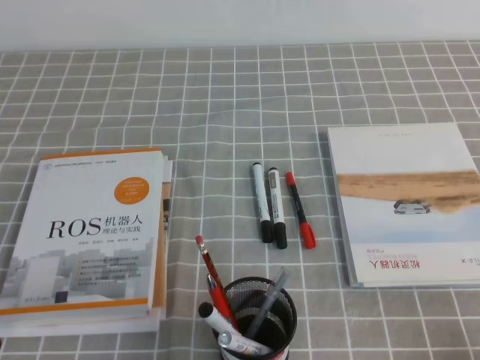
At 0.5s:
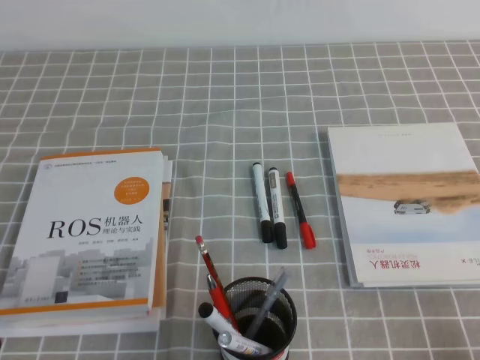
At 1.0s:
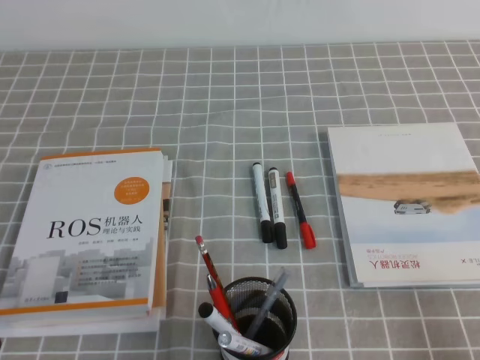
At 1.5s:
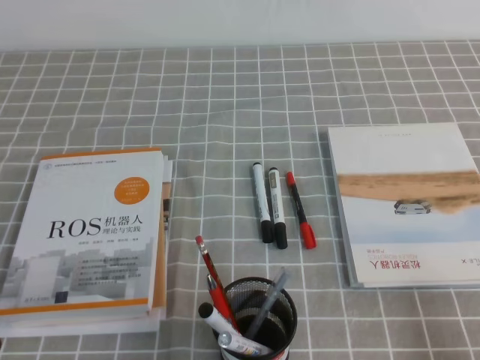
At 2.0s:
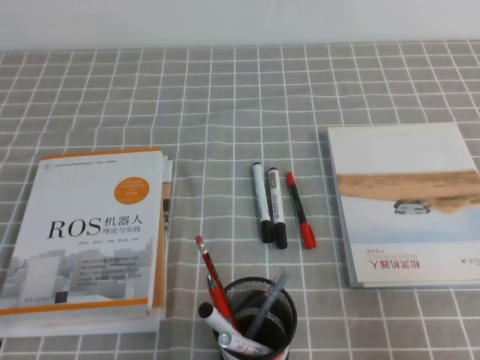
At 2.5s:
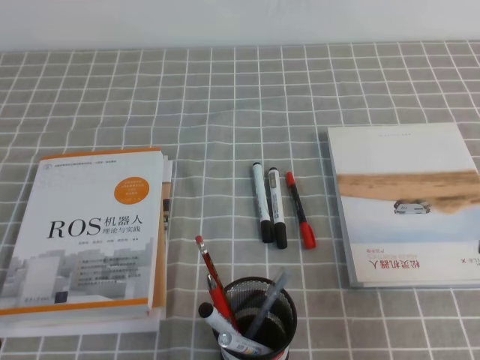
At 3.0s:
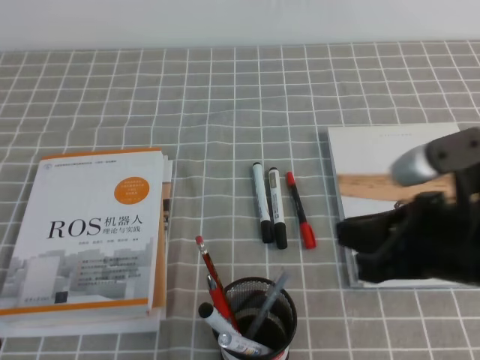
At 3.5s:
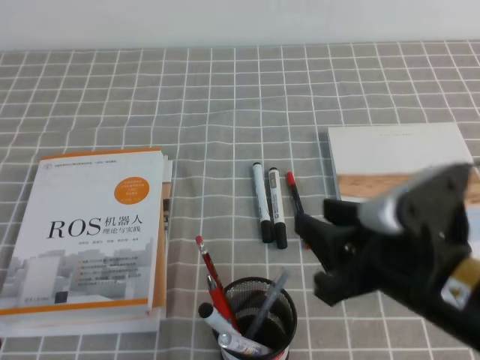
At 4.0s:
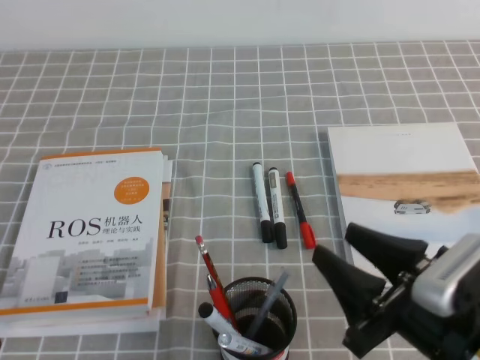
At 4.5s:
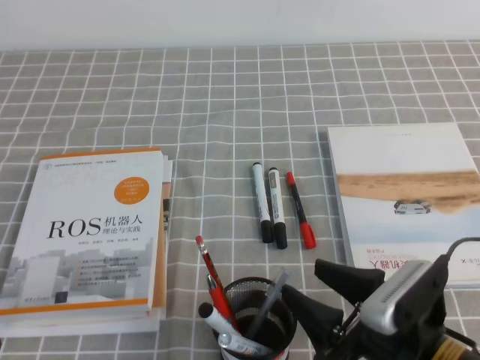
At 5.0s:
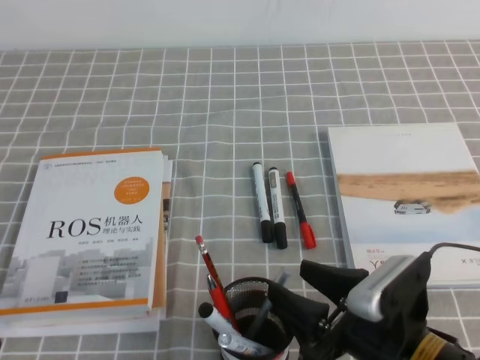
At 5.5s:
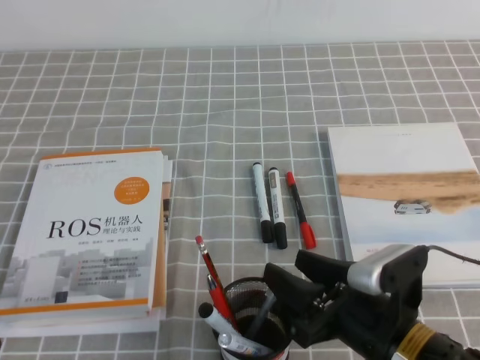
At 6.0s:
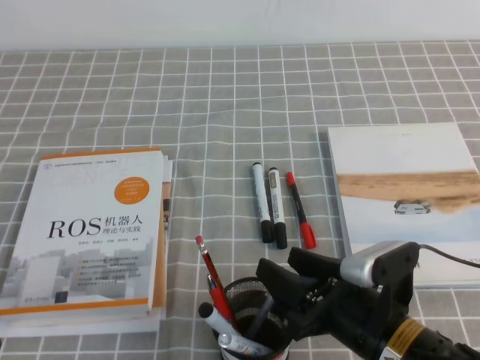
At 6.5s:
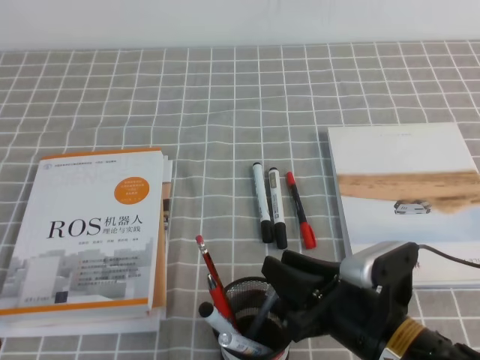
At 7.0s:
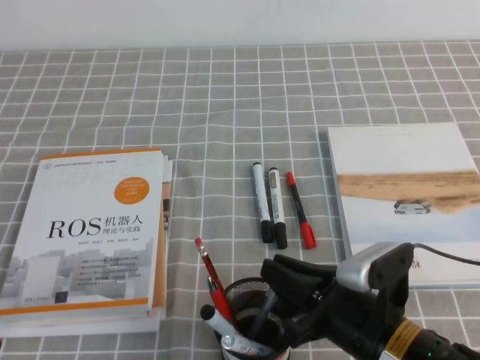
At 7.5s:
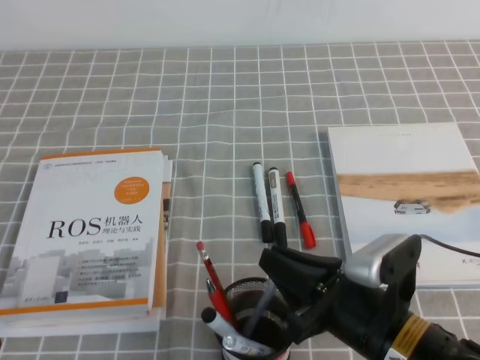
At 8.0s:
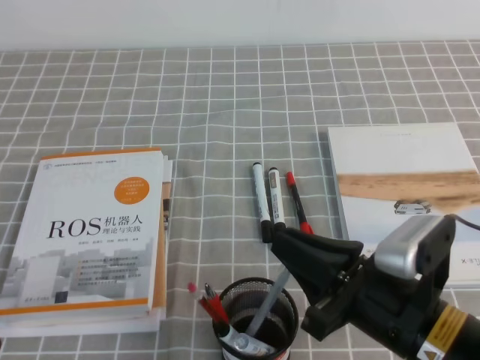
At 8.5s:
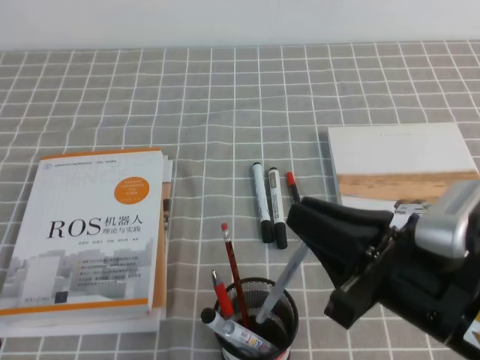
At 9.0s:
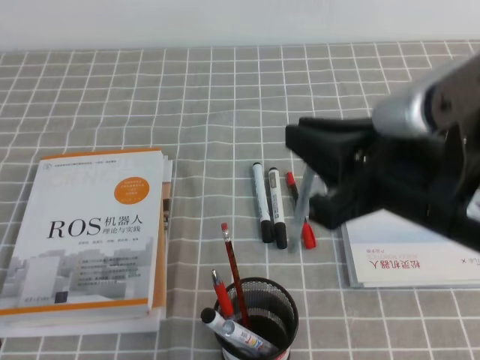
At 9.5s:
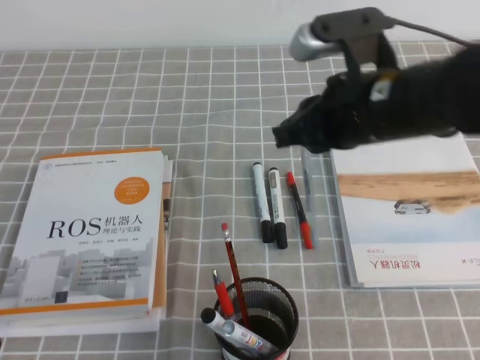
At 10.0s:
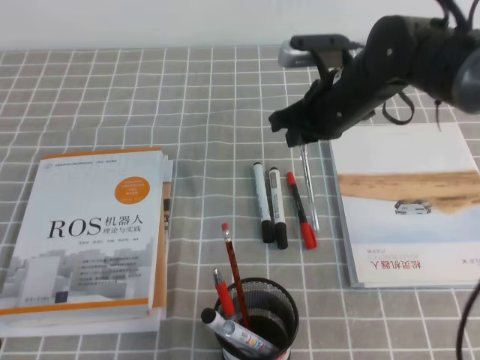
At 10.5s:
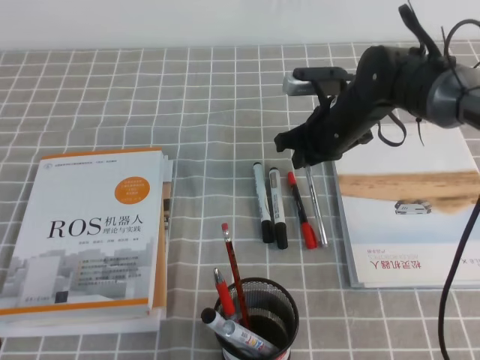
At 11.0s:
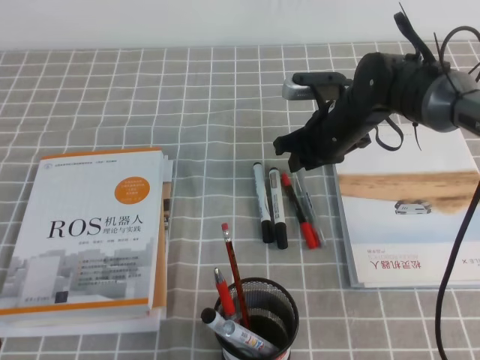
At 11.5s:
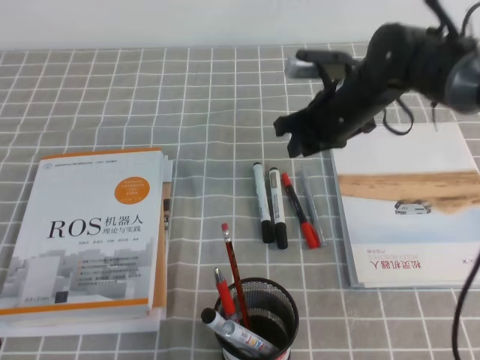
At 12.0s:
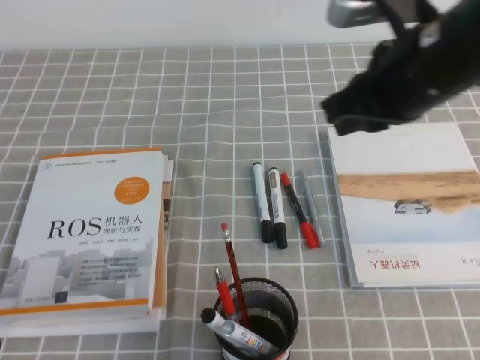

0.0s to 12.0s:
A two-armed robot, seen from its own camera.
0.0s to 2.0s: The right gripper goes roughly 5 cm upward.
2.0s to 4.0s: The right gripper is displaced to the left and forward by roughly 15 cm, and opens up.
4.0s to 6.0s: The right gripper moves downward, approximately 5 cm.
6.0s to 8.0s: The right gripper is displaced upward by roughly 5 cm, and closes up.
8.0s to 10.0s: The right gripper travels forward by approximately 25 cm.
10.0s to 12.0s: The right gripper heads upward and backward, covering about 15 cm.

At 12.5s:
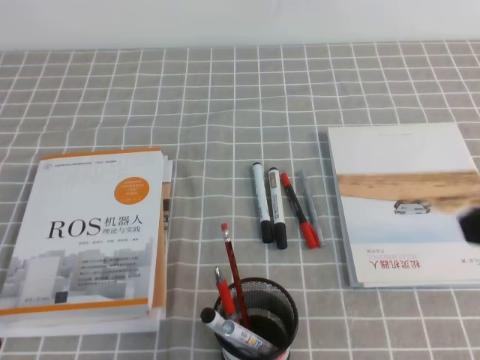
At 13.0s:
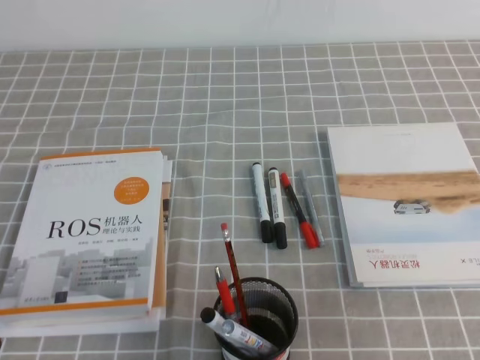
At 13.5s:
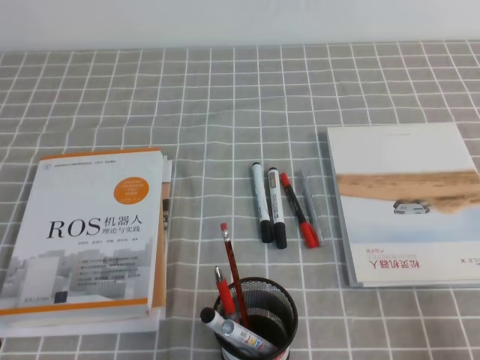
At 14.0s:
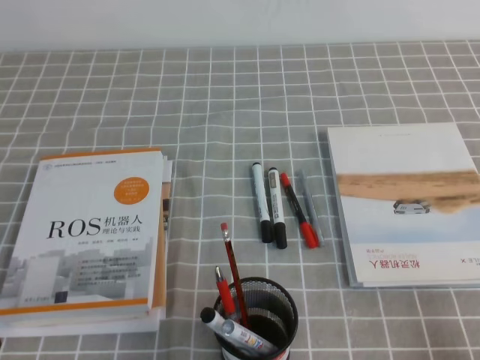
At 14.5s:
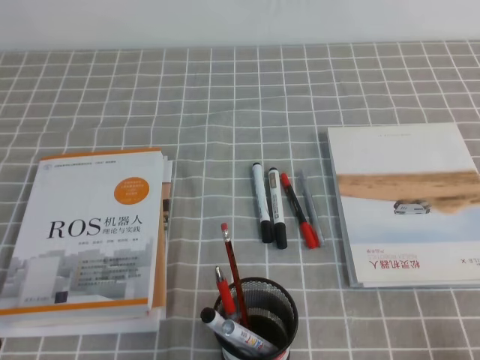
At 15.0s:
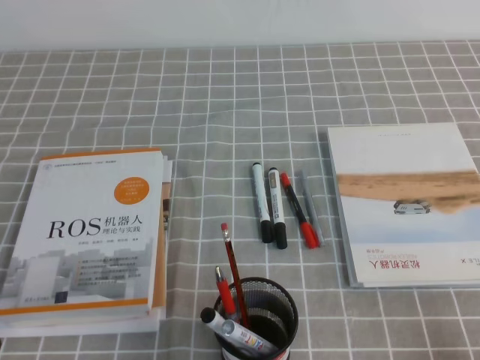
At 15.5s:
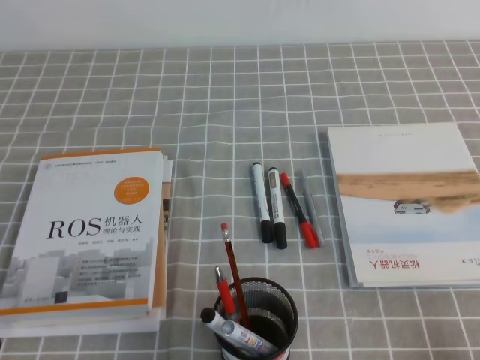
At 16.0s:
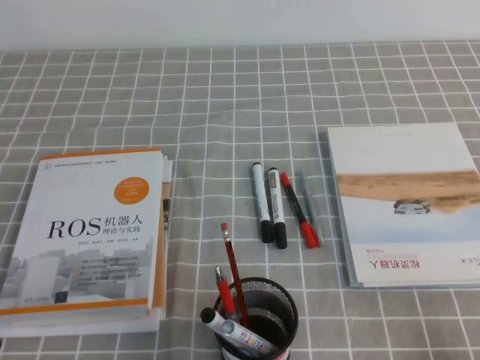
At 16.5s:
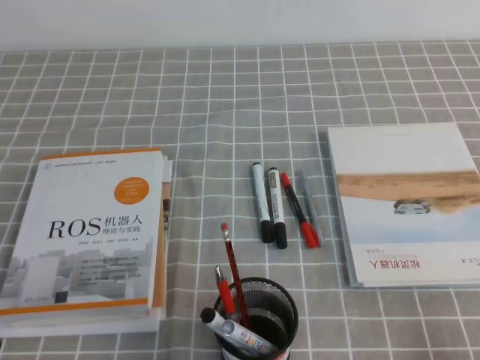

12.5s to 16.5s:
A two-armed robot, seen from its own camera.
Step, 12.5s to 16.5s: Pick up the pen from the pen holder.
12.5s to 14.5s: The right gripper is displaced downward and backward by approximately 25 cm.
